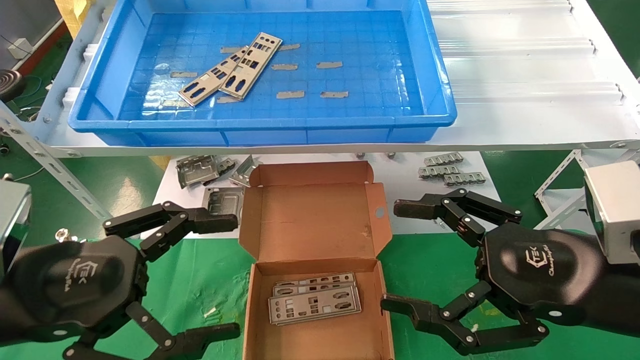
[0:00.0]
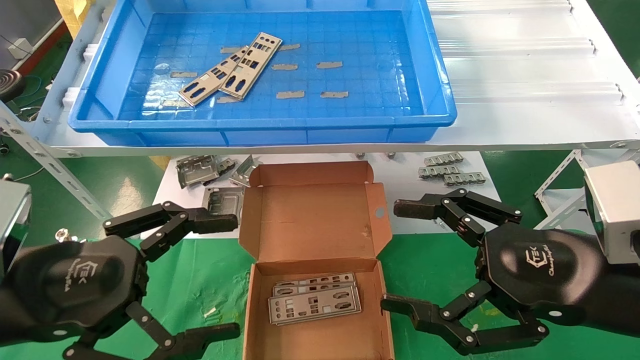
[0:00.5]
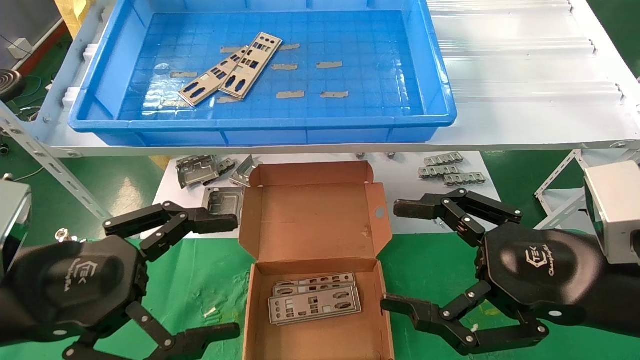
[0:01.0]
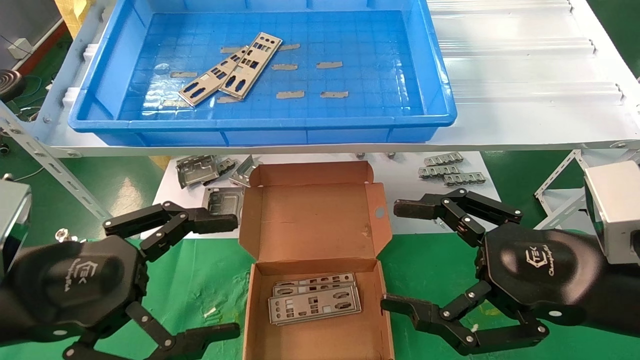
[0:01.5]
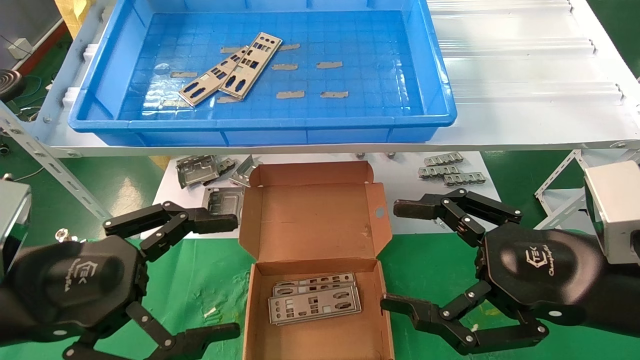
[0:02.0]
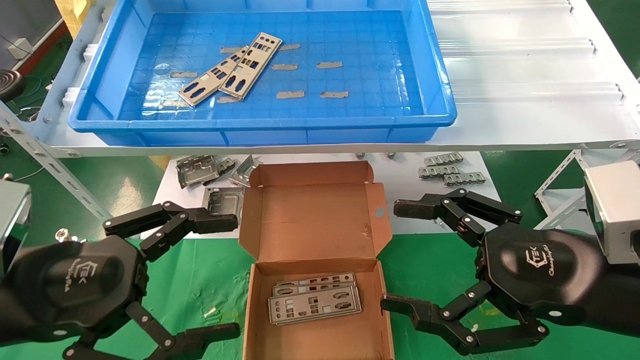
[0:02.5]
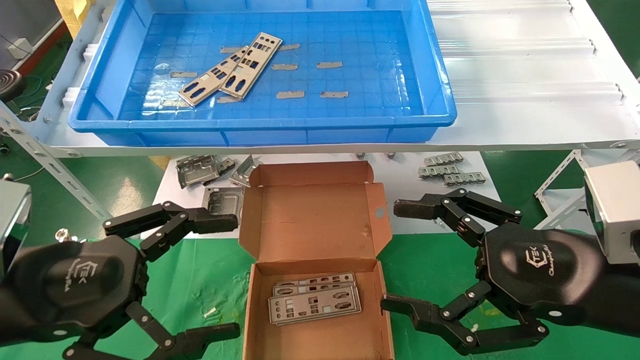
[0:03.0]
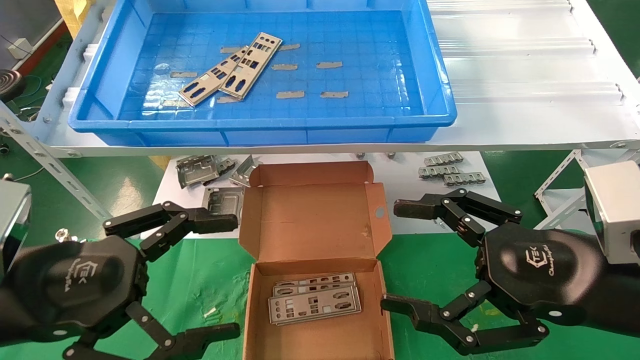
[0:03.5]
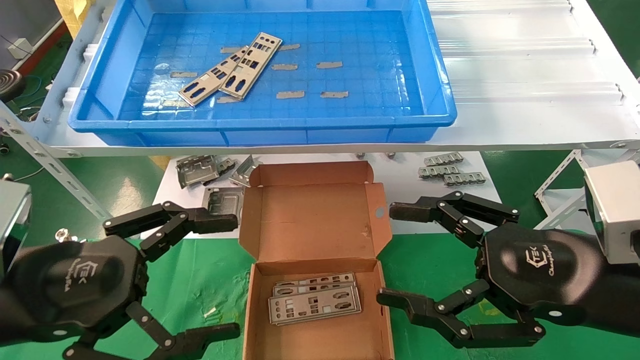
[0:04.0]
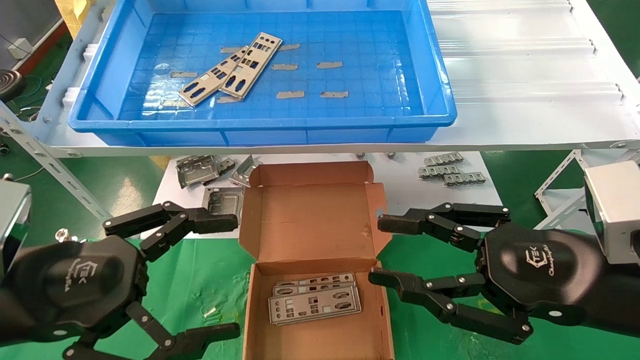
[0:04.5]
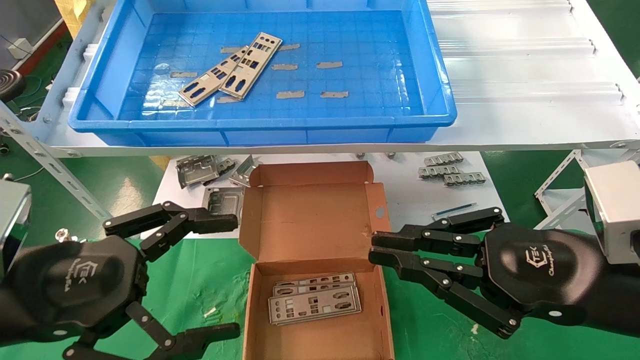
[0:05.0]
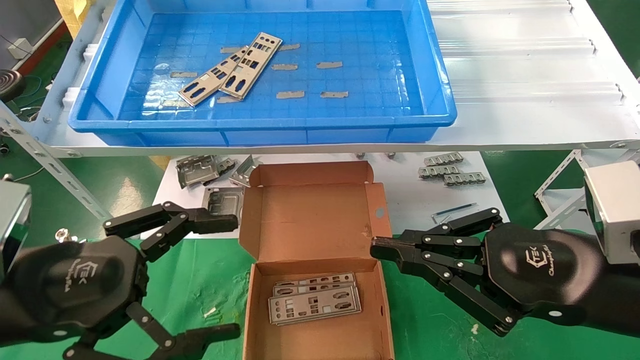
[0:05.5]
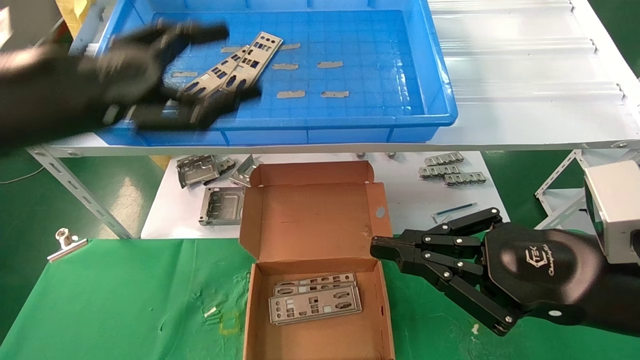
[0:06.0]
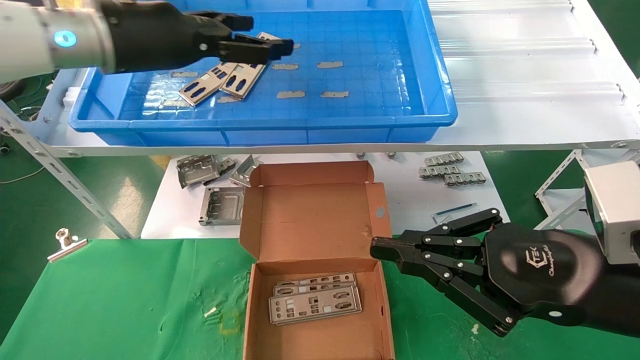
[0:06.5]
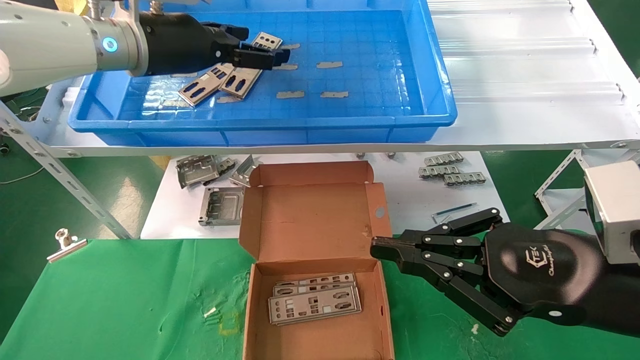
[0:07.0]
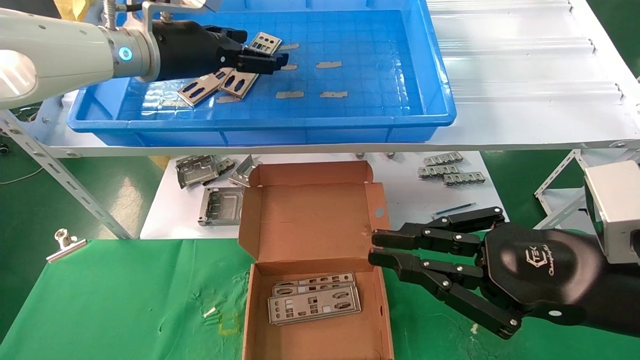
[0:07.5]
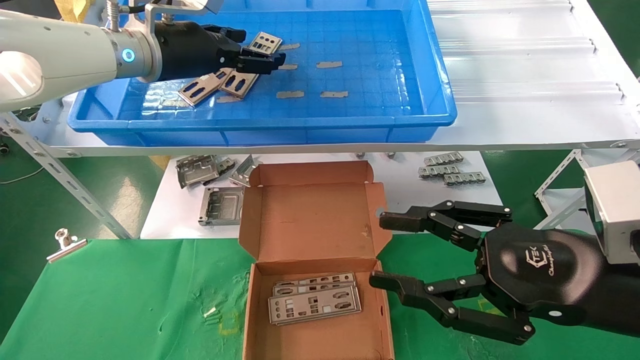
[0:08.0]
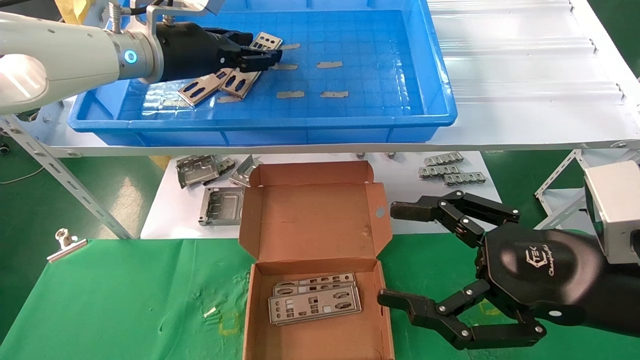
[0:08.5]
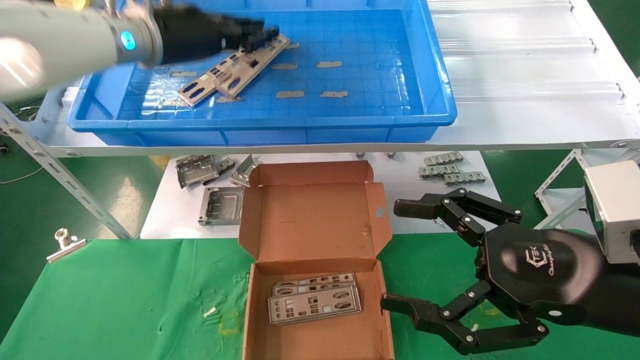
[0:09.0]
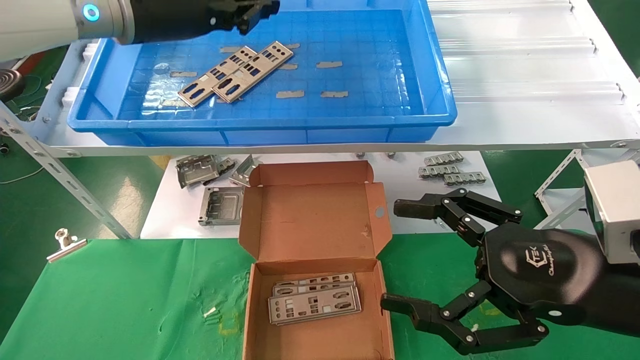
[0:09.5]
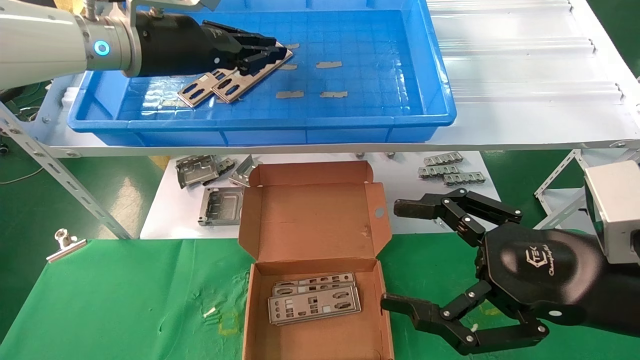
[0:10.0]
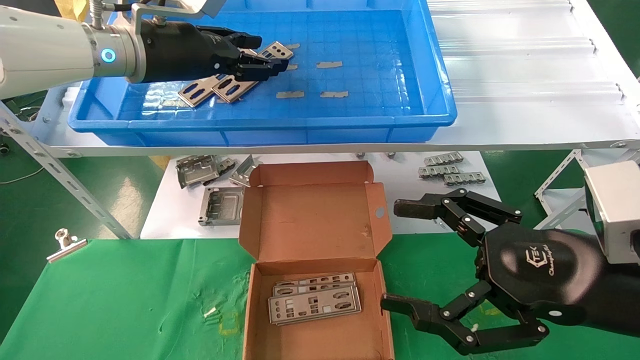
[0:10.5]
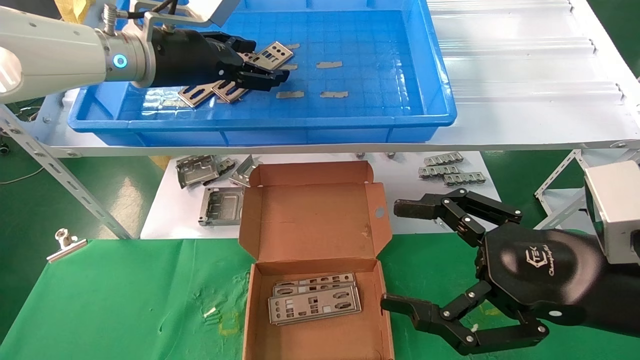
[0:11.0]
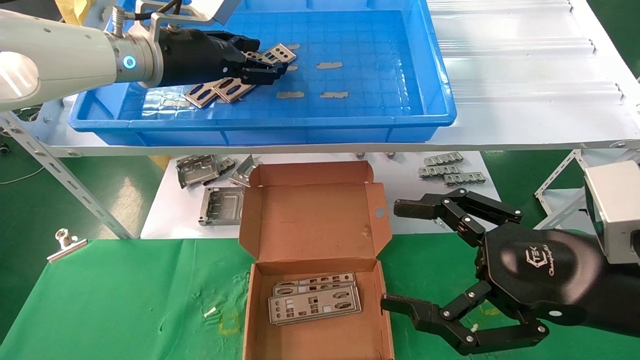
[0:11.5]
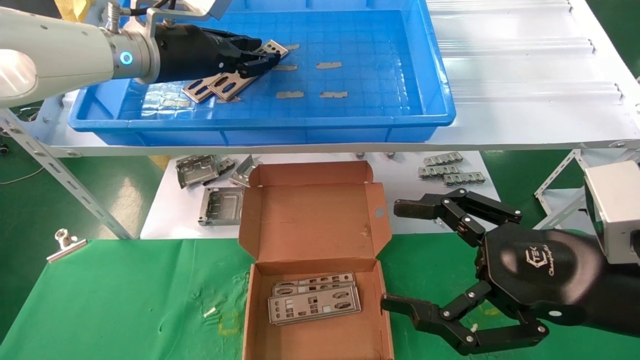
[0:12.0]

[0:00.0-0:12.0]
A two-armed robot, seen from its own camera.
Task of the whole recording: pick up the parts on the tray and put them in the cardboard box.
Step, 0:06.0 to 0:12.0: Pick up the IO bracket from the container box.
0:00.0 to 0:04.0: The two grippers keep their place.
0:04.0 to 0:06.0: The left gripper goes about 15 cm upward and forward; the right gripper closes.
0:06.0 to 0:08.0: The right gripper opens up. The left gripper shifts approximately 15 cm forward.
0:08.0 to 0:10.0: The left gripper closes up, while the right gripper opens up.
0:10.0 to 0:12.0: The left gripper opens, then closes once more.

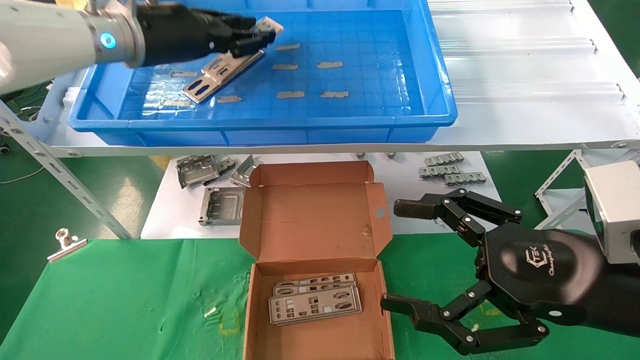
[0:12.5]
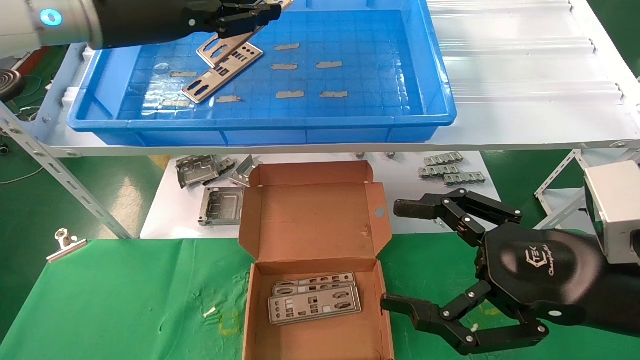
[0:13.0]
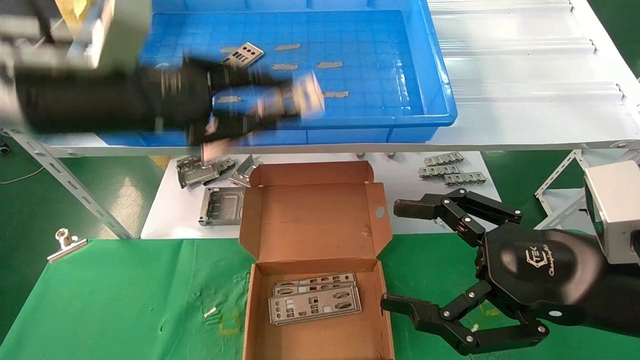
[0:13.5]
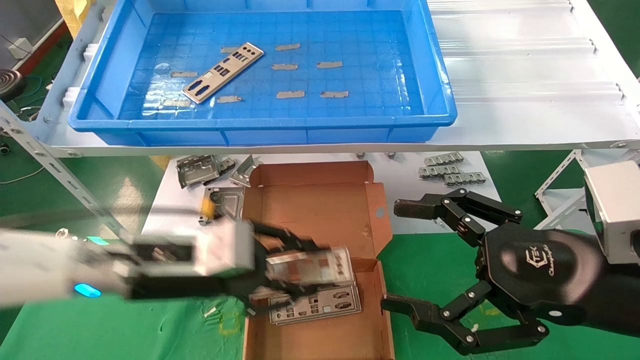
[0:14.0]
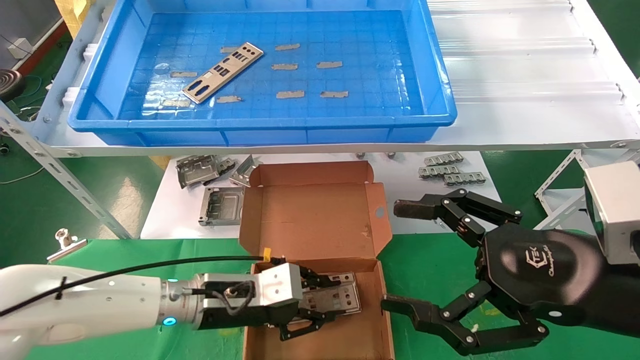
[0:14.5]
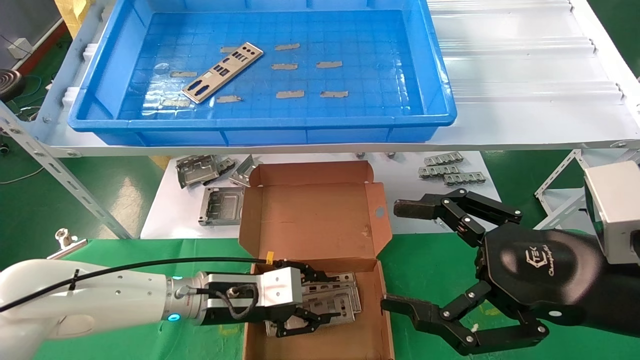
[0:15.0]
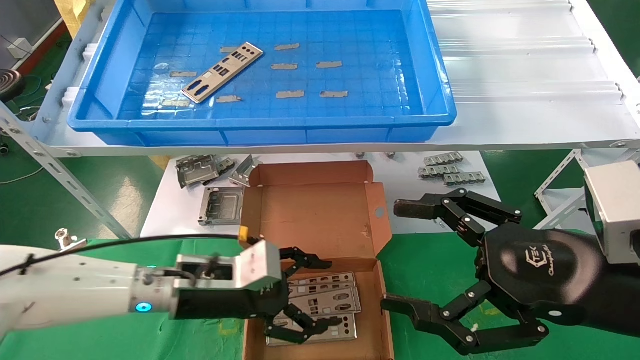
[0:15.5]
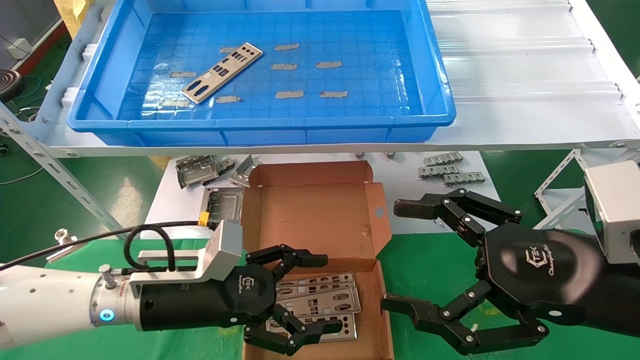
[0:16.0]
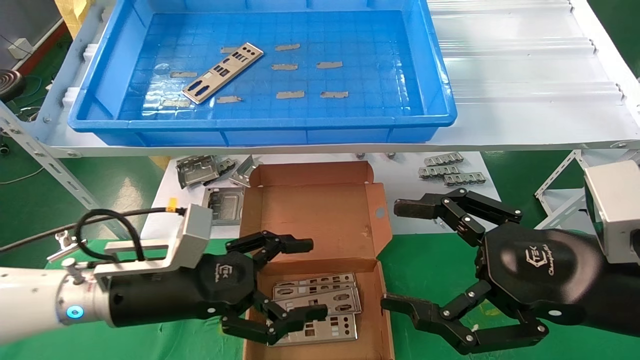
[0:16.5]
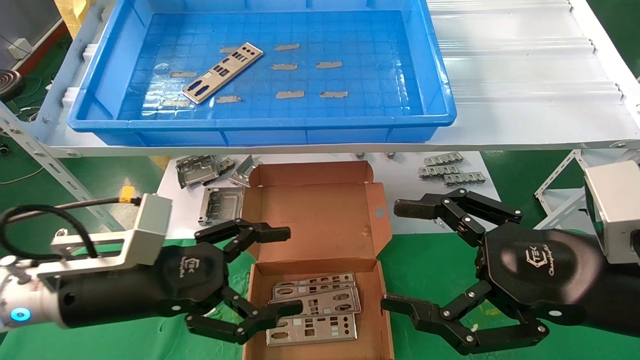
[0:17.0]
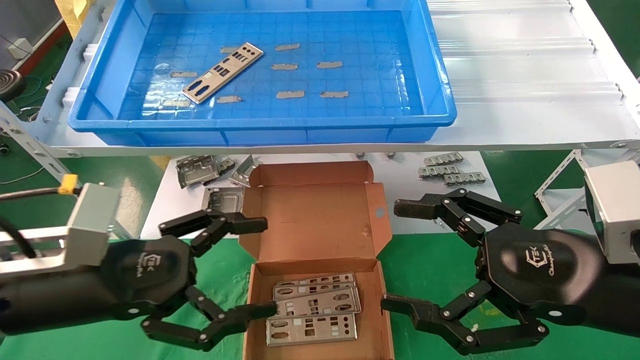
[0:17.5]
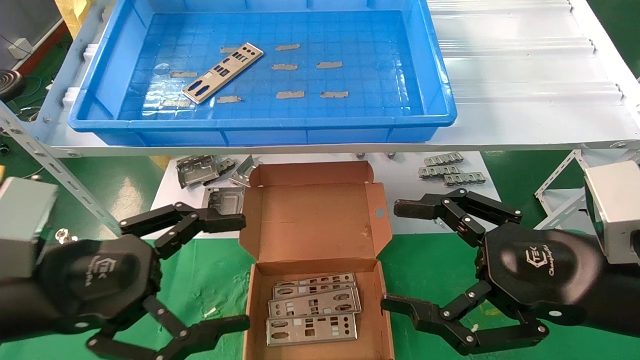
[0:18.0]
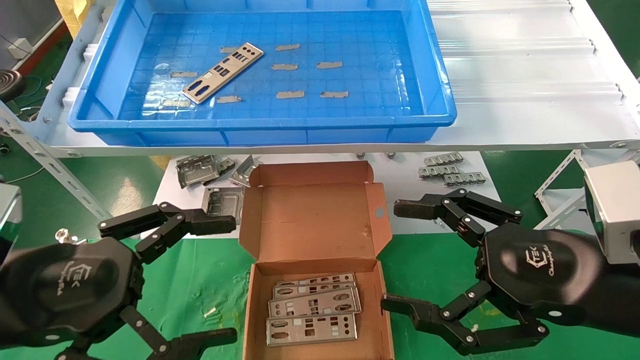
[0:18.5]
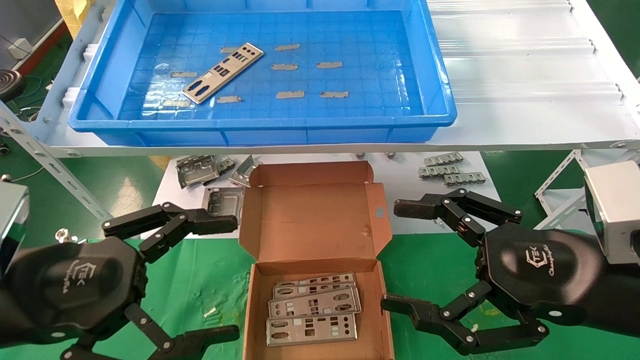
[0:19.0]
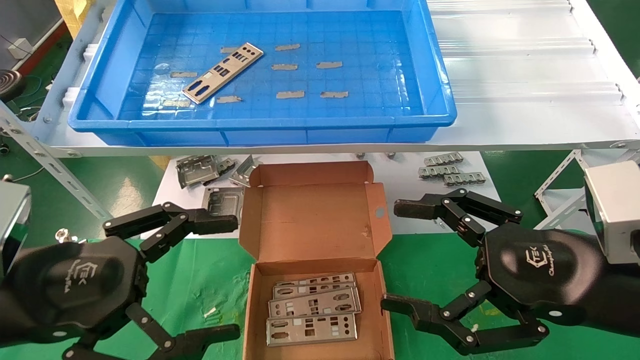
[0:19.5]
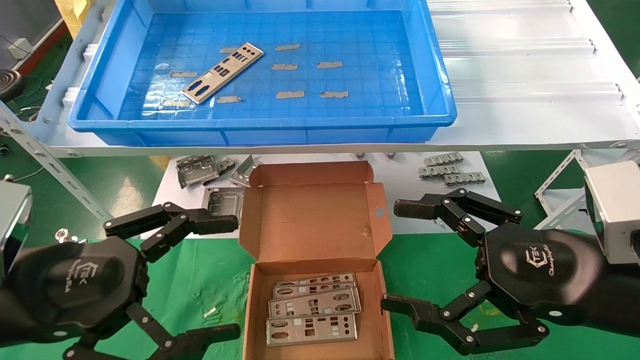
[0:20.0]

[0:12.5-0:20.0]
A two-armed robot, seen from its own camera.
Task of the whole recording: pick up the parts on the tray and put them in the cardboard box.
Step, 0:12.5 to 0:15.0: Place the IO bracket into the ingredient slot.
0:12.5 to 0:14.5: The left gripper shifts about 35 cm downward.
0:14.5 to 0:16.5: The left gripper moves backward and to the left, roughly 10 cm, and opens.
0:16.5 to 0:18.0: The left gripper shifts some 15 cm backward, upward and to the left.
0:18.0 to 0:20.0: The grippers move only a little.
